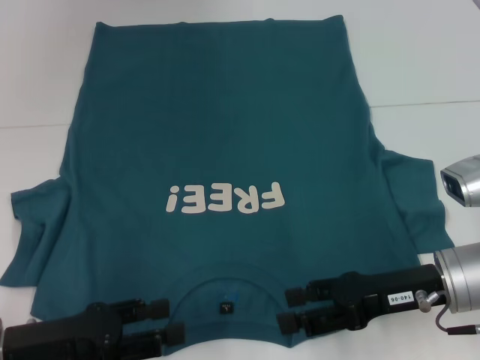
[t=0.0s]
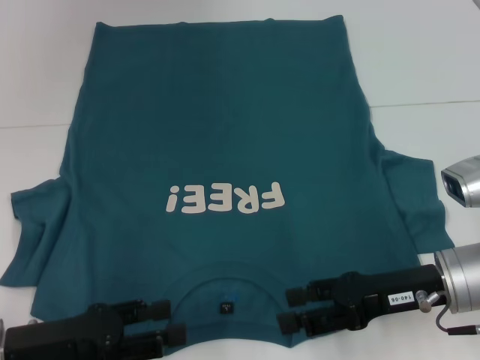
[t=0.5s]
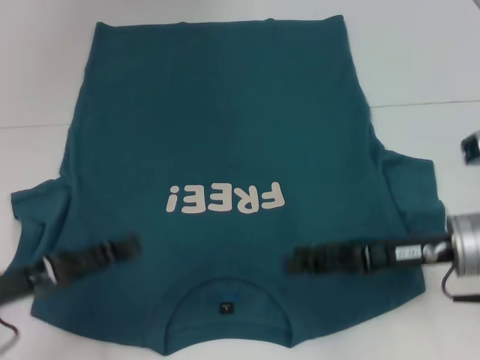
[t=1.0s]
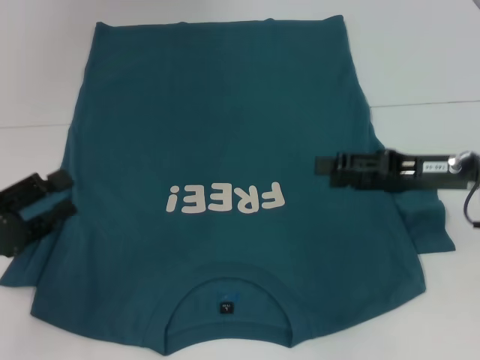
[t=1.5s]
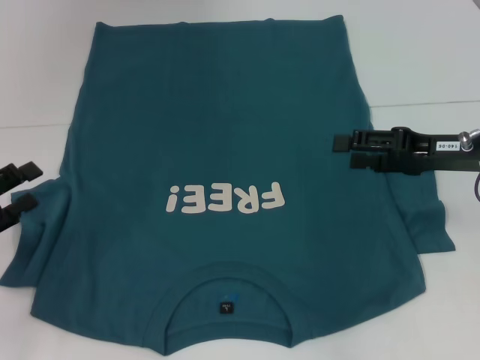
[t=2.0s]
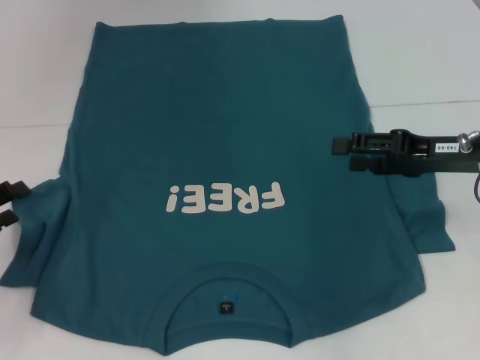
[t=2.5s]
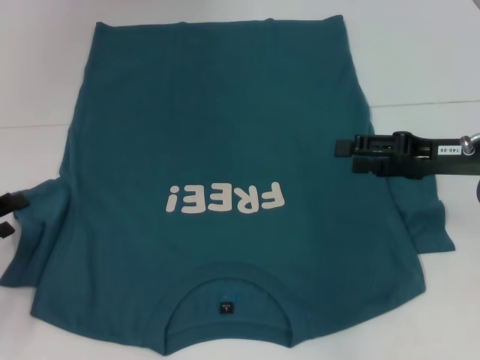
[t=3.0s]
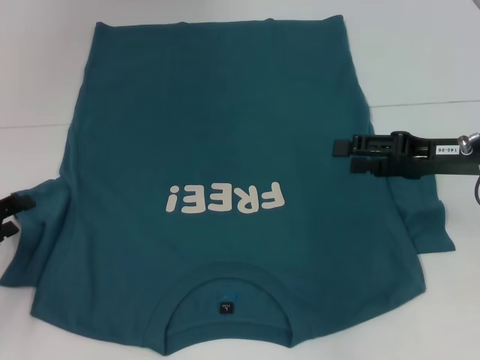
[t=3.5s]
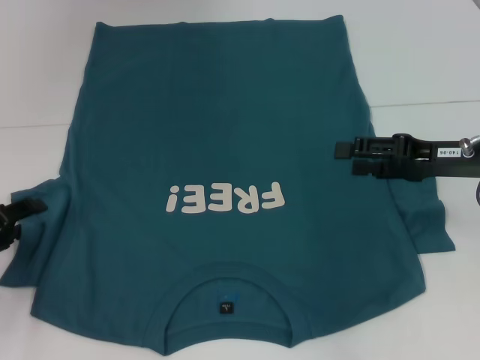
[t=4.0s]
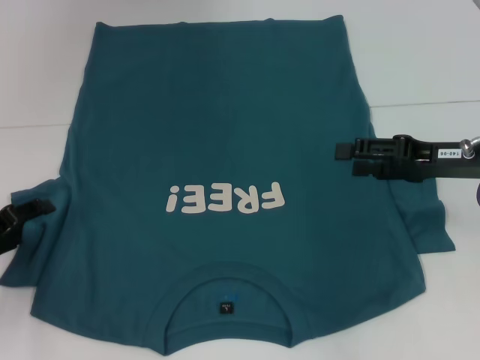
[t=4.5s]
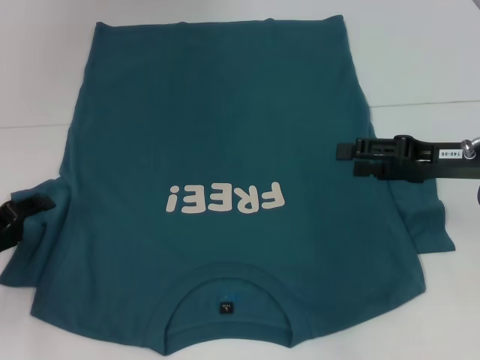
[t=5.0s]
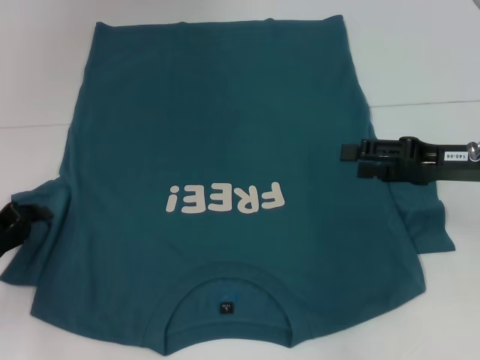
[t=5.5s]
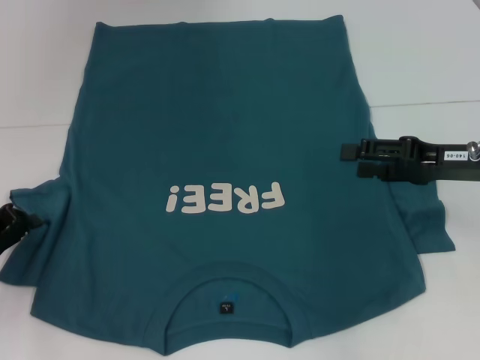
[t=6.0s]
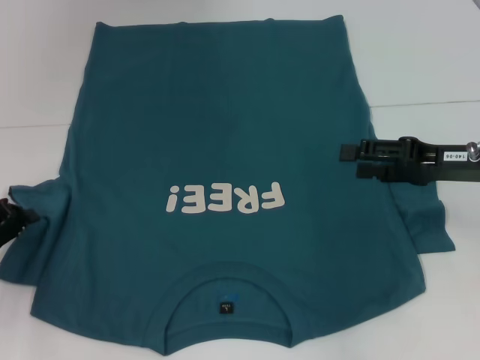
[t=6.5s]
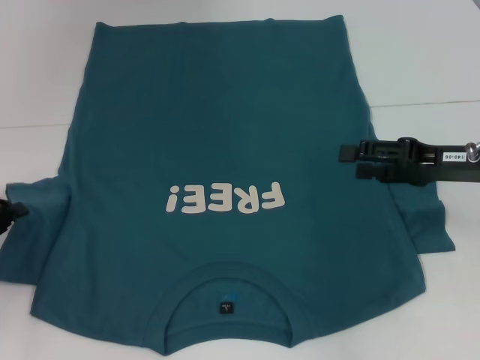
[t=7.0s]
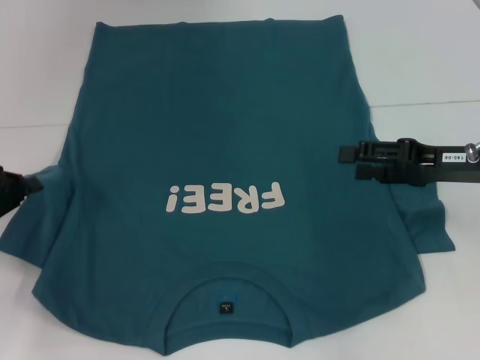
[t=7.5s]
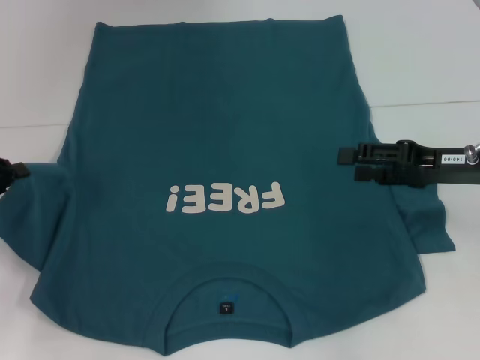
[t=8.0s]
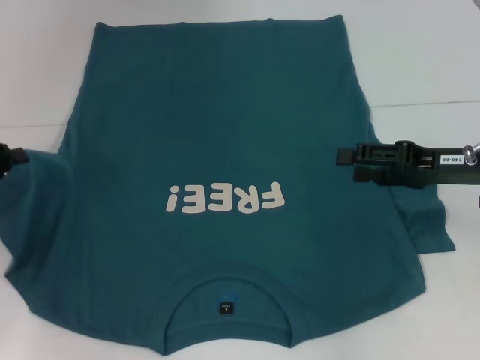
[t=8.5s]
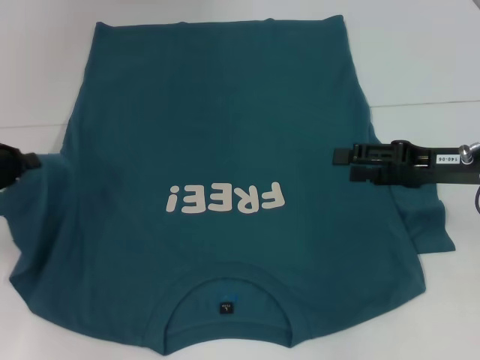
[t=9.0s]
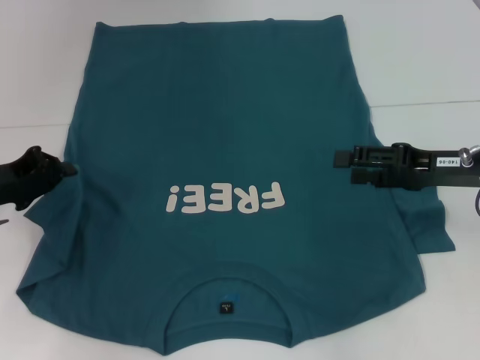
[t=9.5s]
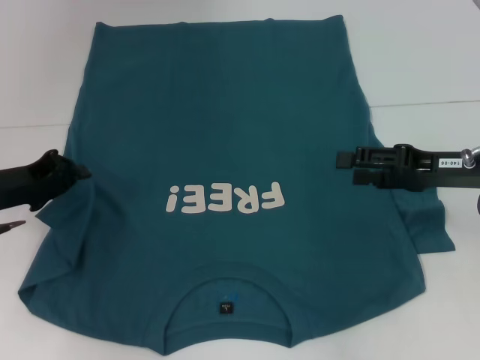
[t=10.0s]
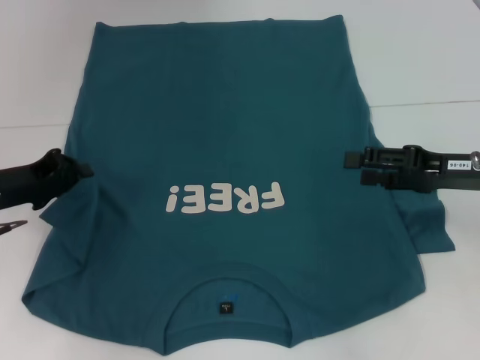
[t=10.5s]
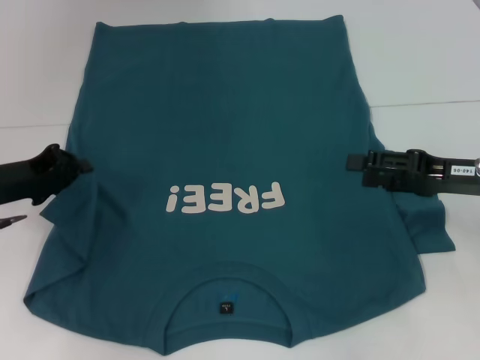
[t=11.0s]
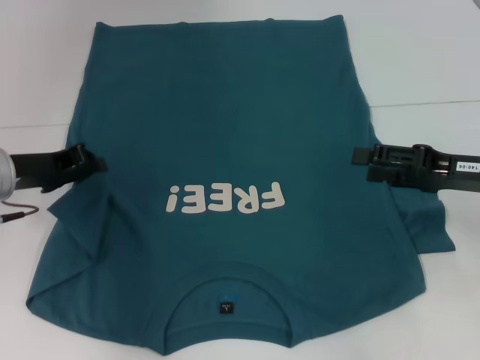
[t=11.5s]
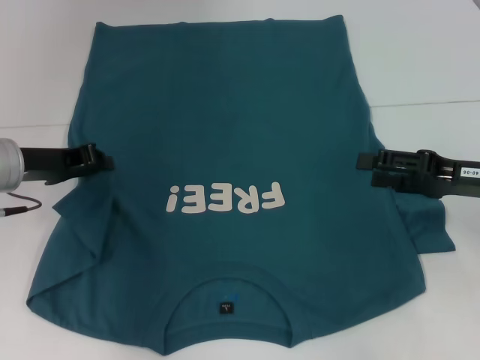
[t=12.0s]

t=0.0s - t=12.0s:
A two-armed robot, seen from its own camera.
t=0.0s - t=2.0s: The right gripper travels forward, to the right and upward by approximately 10 cm, while the left gripper heads to the left, covering roughly 10 cm.
t=4.0s - t=6.0s: The left gripper closes up.
t=6.0s - t=8.0s: The left gripper moves upward, roughly 5 cm.
t=8.0s - t=10.0s: The left gripper travels to the right by some 5 cm.
t=10.0s - t=12.0s: The left gripper changes place by roughly 5 cm.

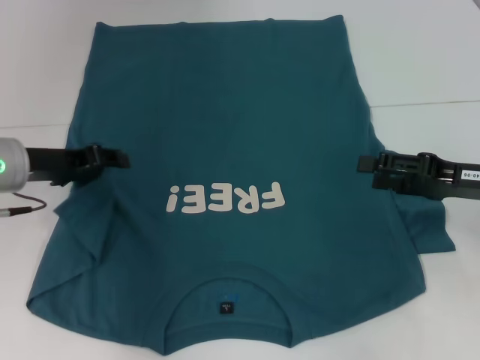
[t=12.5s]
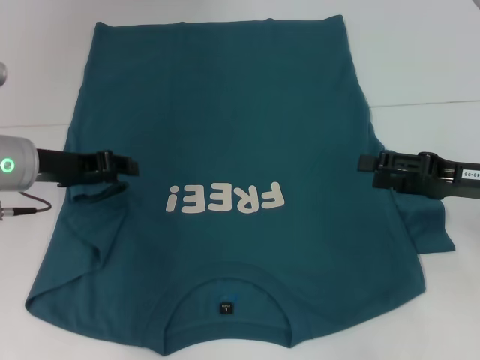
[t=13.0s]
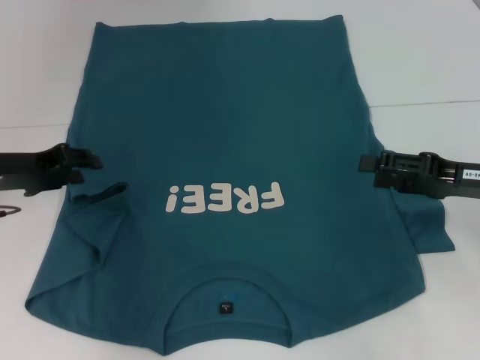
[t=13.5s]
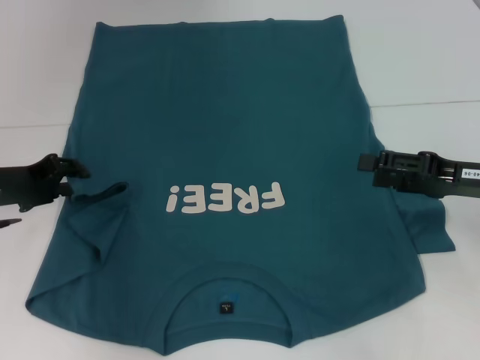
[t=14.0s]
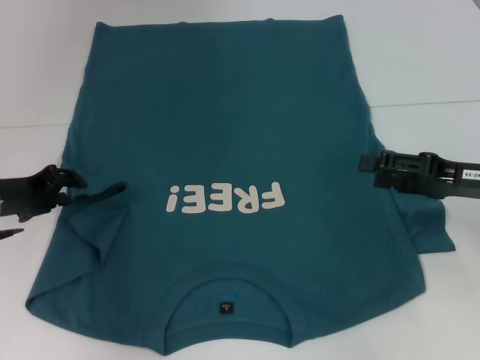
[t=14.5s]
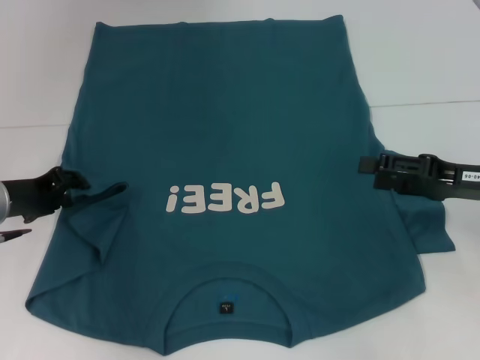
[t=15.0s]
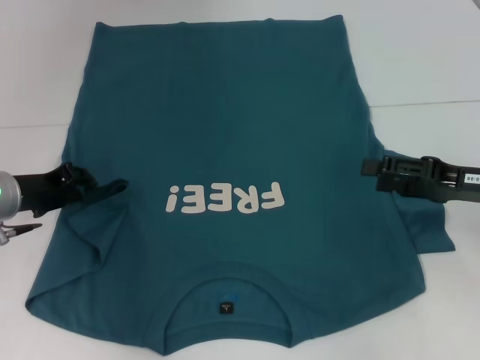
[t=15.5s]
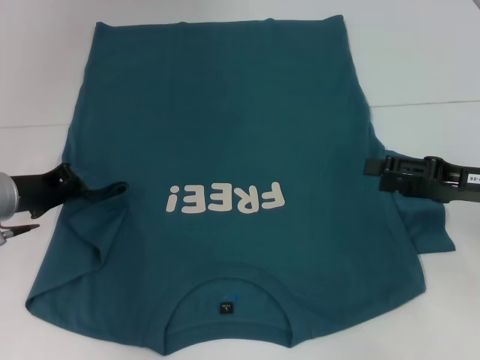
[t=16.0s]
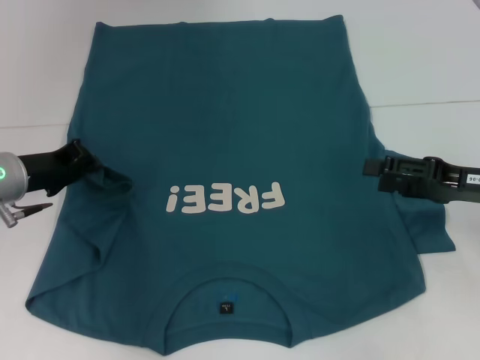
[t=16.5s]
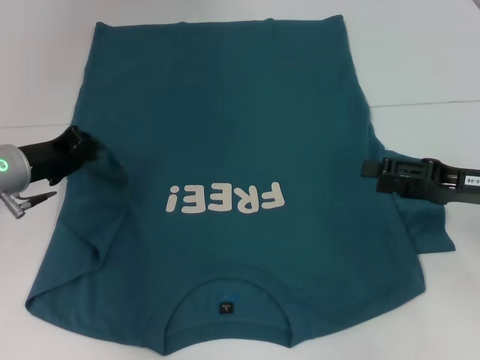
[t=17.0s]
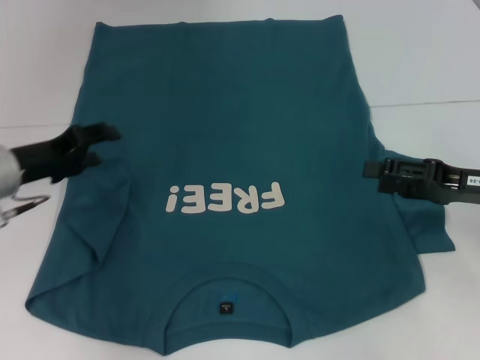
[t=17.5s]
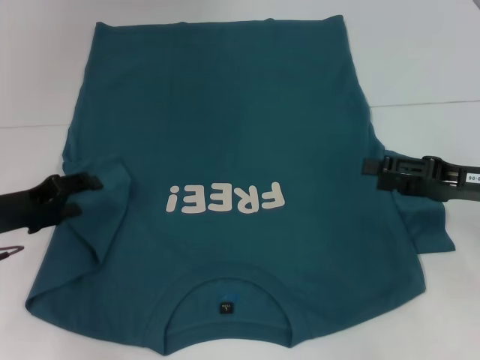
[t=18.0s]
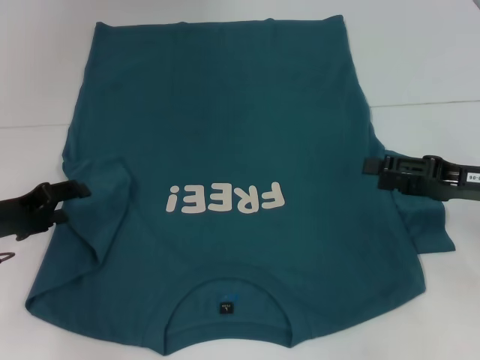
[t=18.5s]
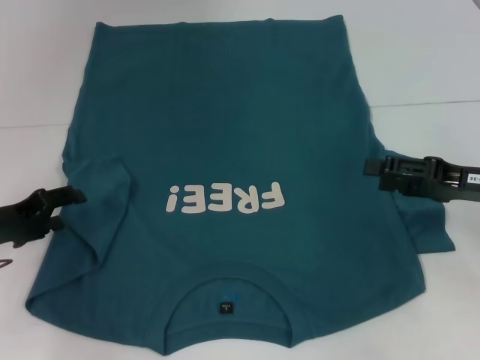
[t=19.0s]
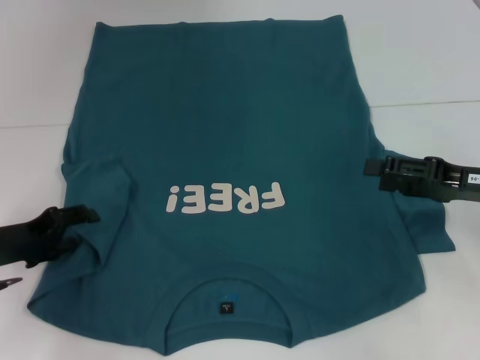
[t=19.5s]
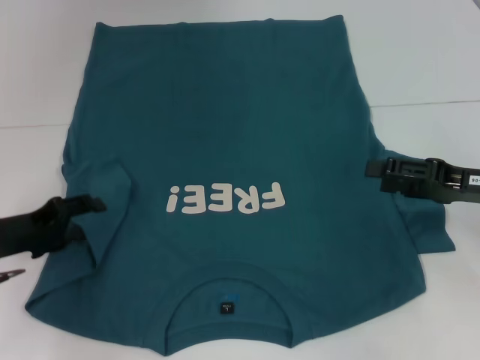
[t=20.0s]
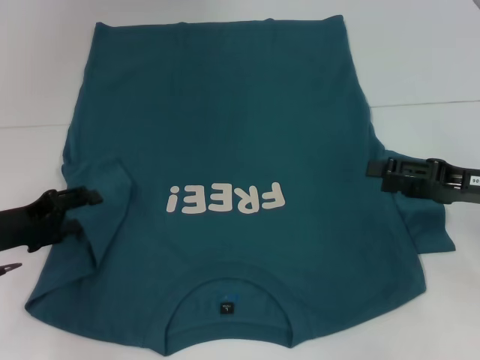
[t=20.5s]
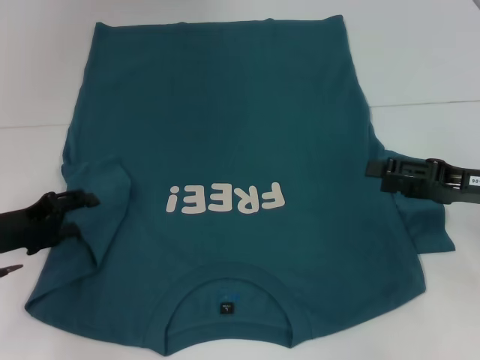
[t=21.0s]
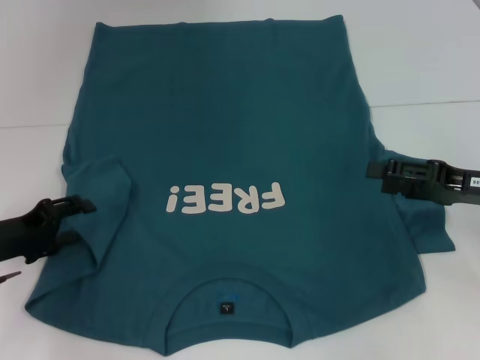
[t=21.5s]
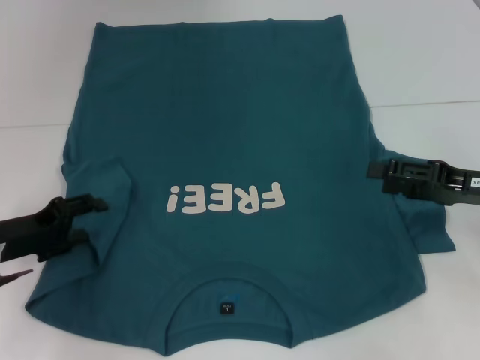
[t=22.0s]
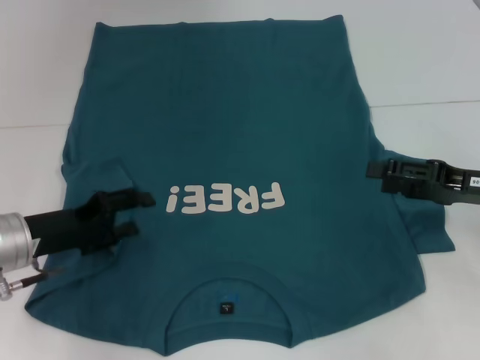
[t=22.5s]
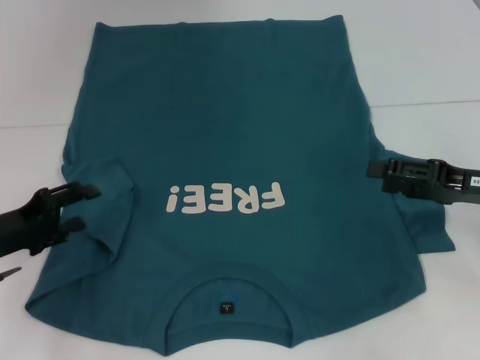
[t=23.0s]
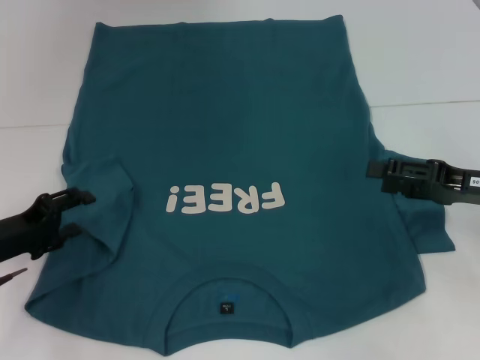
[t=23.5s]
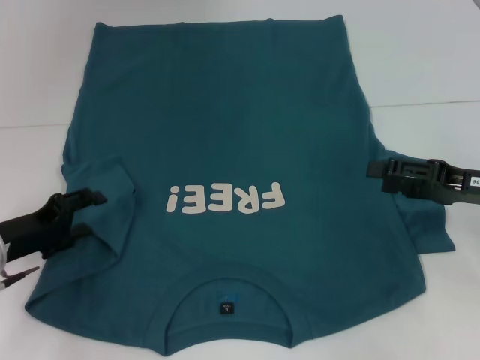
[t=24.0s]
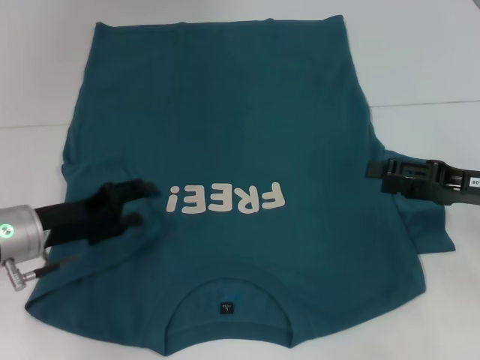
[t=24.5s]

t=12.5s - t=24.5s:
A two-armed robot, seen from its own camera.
t=12.5s - t=14.5s: The left gripper changes place by approximately 5 cm.
t=14.5s - t=16.5s: The left gripper closes.
t=16.5s - t=18.5s: The left gripper is displaced backward by approximately 5 cm, and opens up.
t=18.5s - t=24.5s: The grippers move only a little.

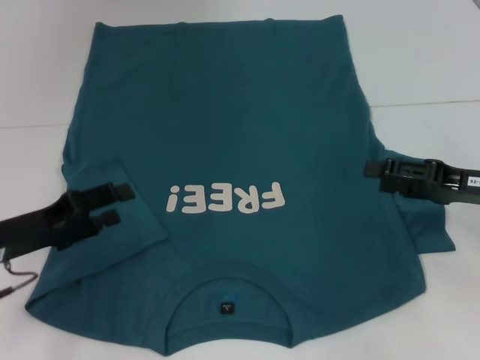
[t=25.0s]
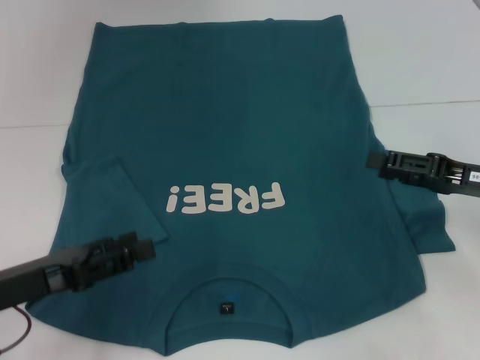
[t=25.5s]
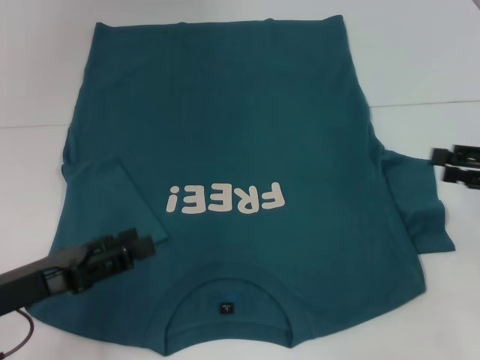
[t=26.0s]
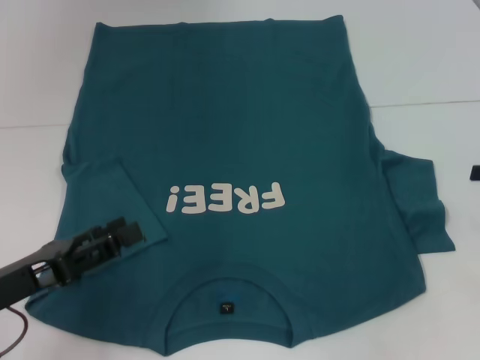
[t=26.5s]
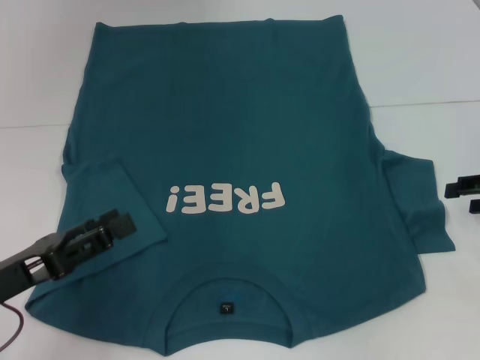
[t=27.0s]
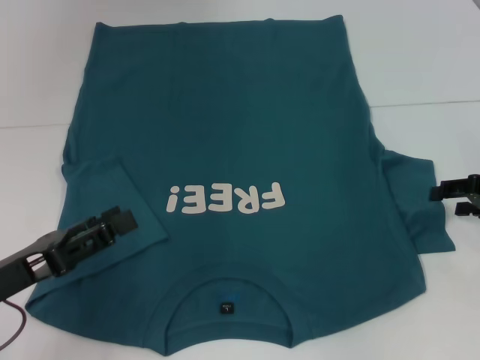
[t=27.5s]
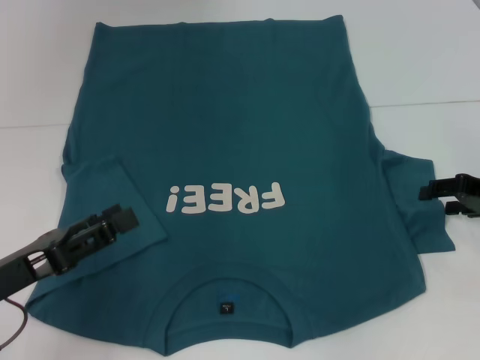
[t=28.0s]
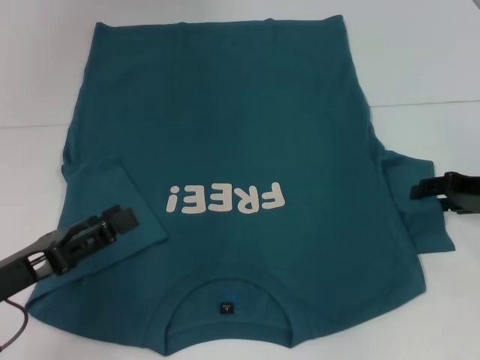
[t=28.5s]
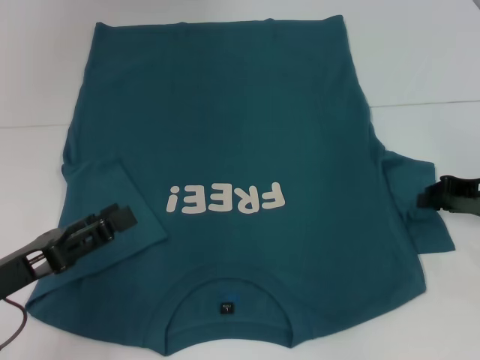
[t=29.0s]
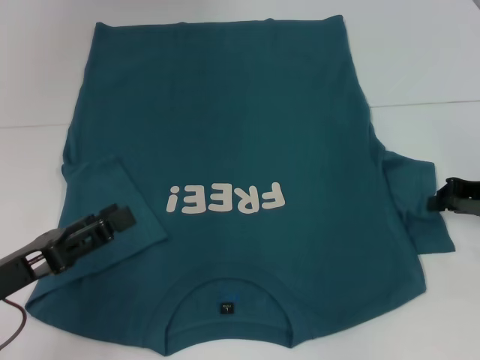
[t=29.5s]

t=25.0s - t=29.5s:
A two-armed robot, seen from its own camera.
t=25.0s - t=27.0s: The right gripper moves to the right, some 5 cm; the left gripper travels backward by about 5 cm.
t=27.0s - t=29.5s: The right gripper moves approximately 5 cm, and closes.
